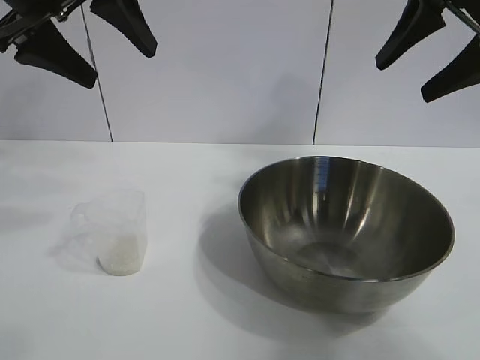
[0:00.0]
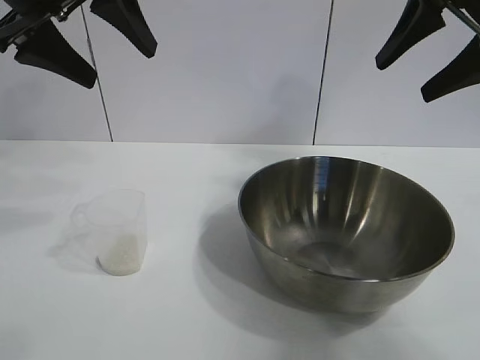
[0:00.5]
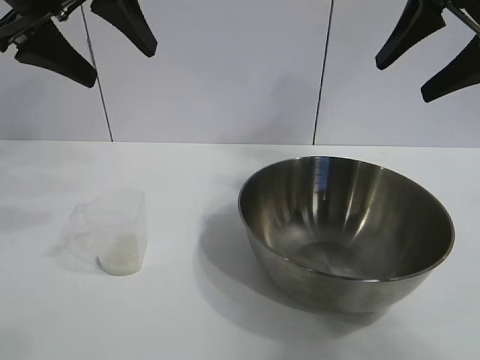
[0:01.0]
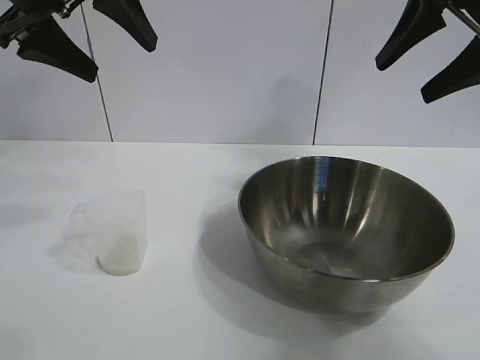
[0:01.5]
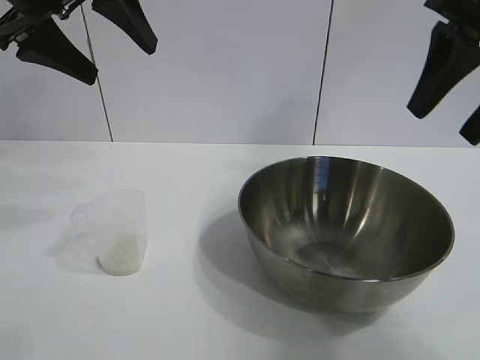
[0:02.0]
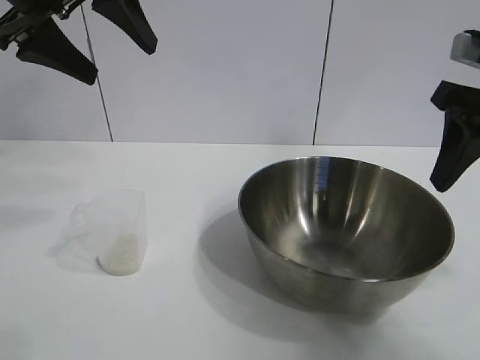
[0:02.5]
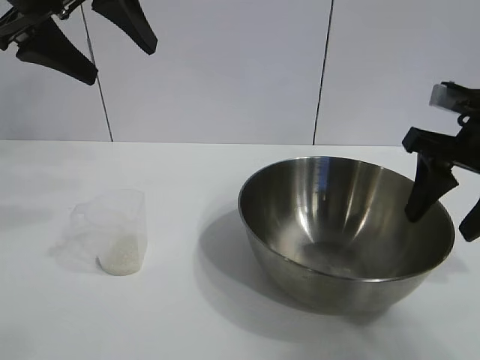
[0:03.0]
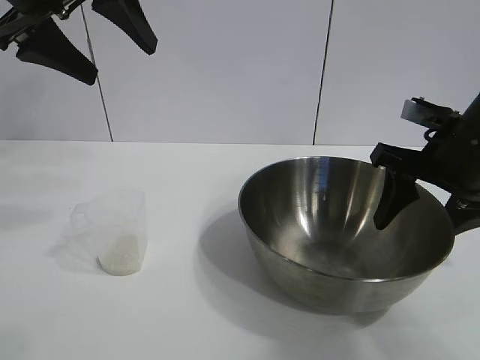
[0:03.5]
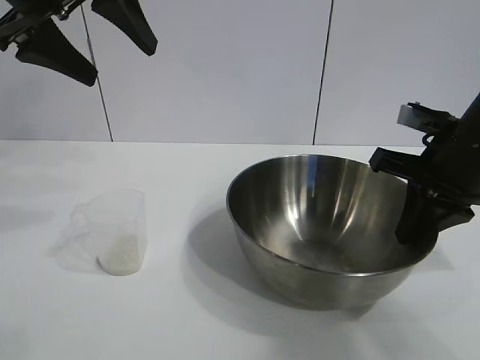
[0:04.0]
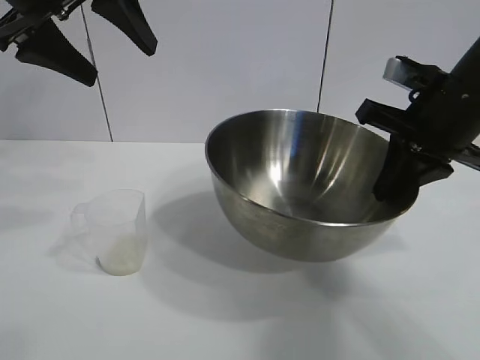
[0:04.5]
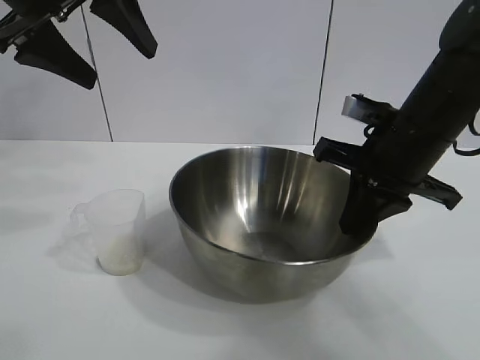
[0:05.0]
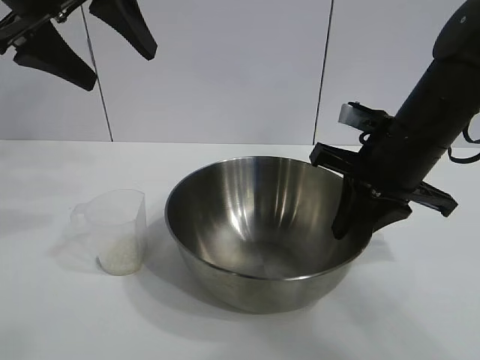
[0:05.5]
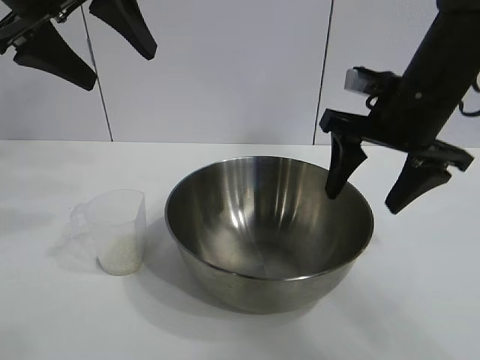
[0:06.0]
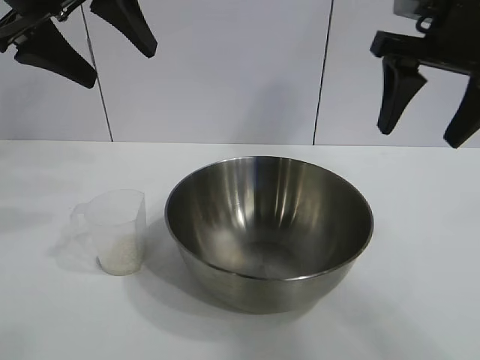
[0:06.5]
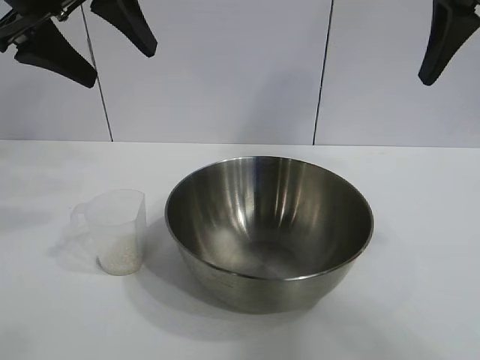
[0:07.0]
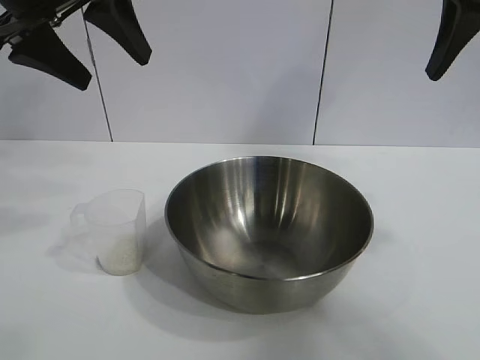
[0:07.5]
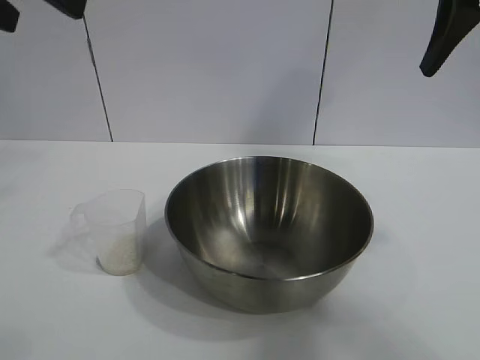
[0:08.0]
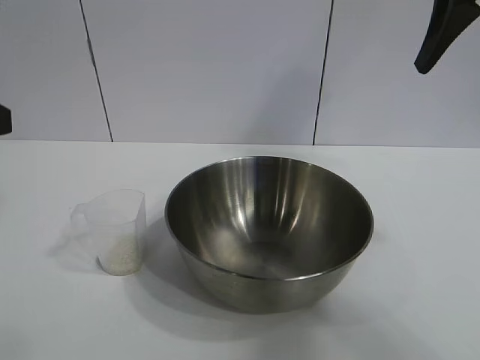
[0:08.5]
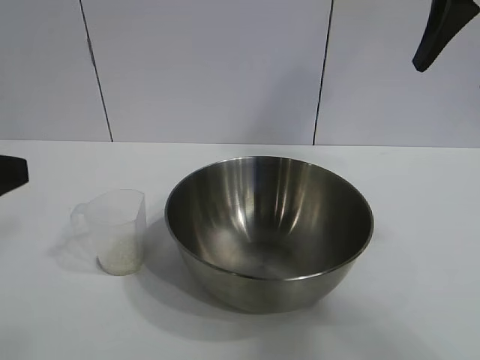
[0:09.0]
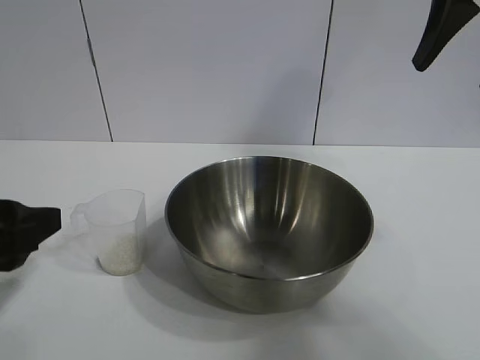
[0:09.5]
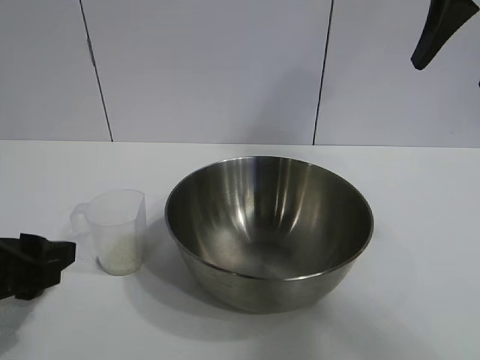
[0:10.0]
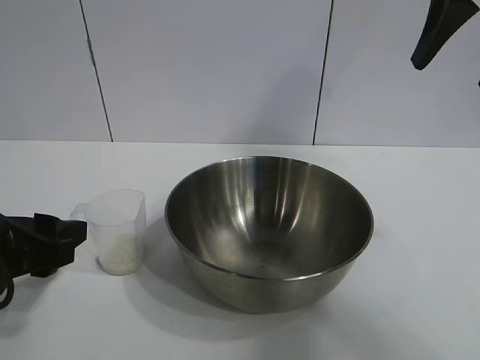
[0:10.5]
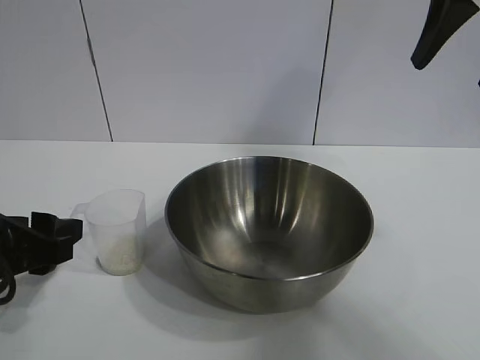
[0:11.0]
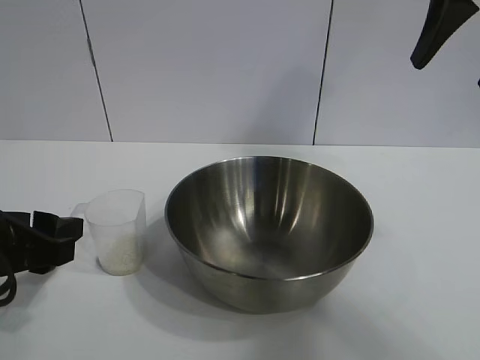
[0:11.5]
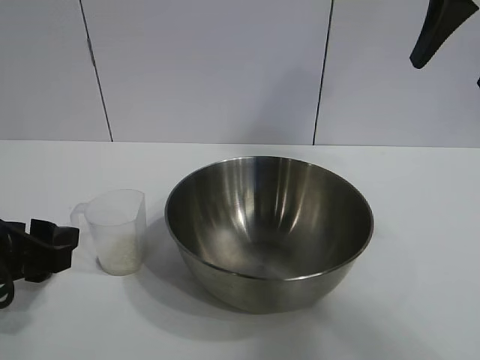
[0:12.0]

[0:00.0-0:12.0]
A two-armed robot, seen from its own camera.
Task of the whole recording: the right gripper grasp the rice container and place it in the center of the table, the left gripper grasp the rice scoop and pour the rice into the rice container.
Step, 0:01.0 to 0:05.5: Move the bowl in the center of view with right gripper.

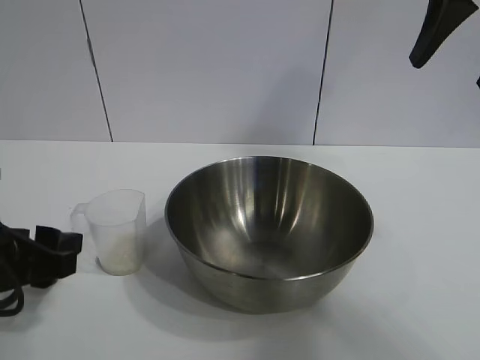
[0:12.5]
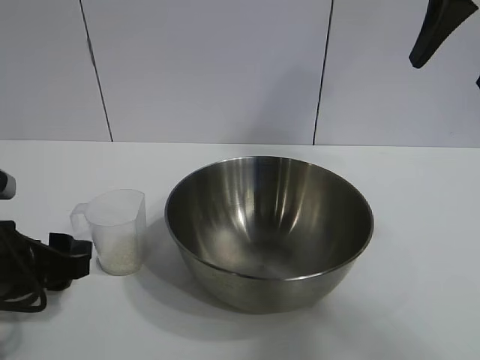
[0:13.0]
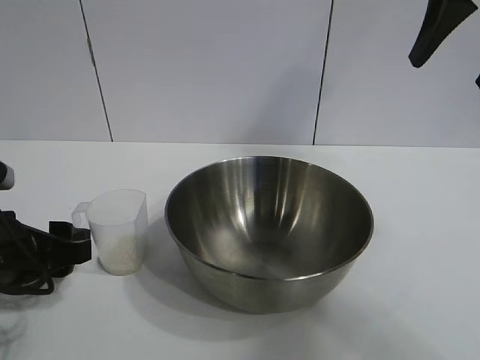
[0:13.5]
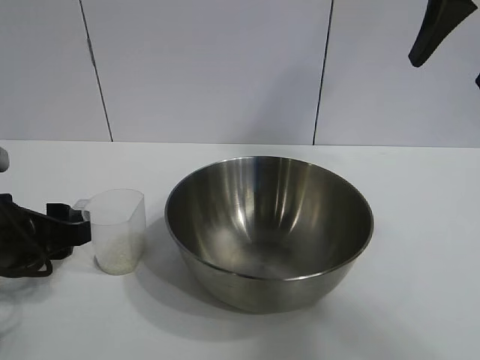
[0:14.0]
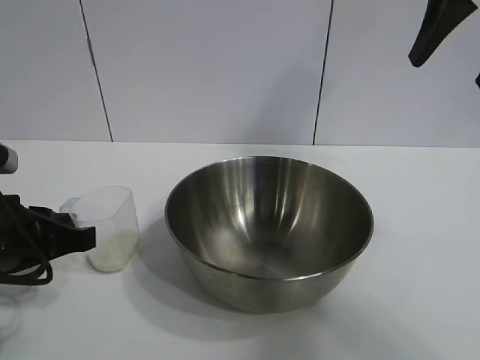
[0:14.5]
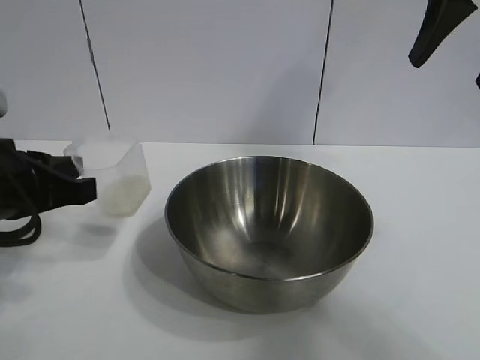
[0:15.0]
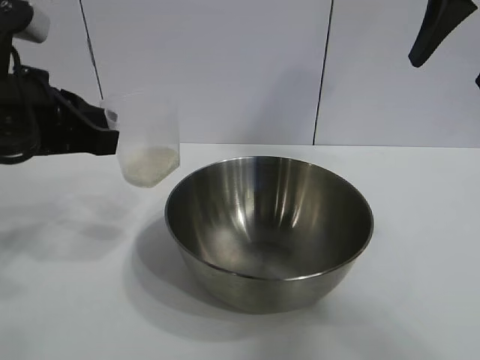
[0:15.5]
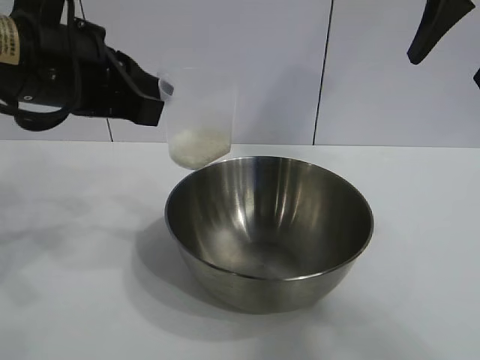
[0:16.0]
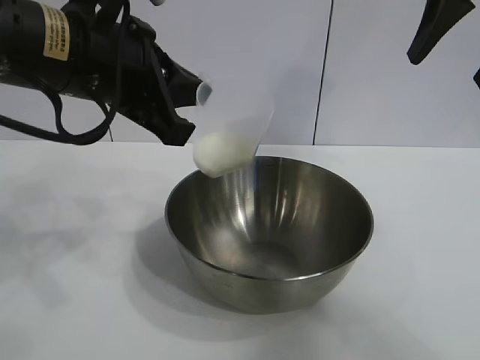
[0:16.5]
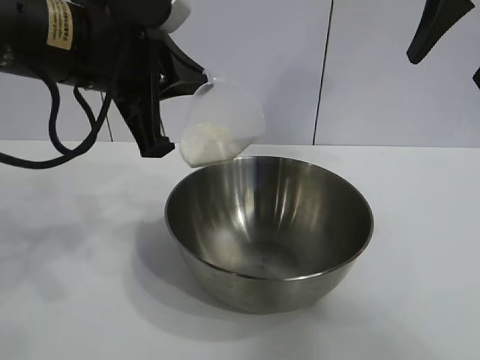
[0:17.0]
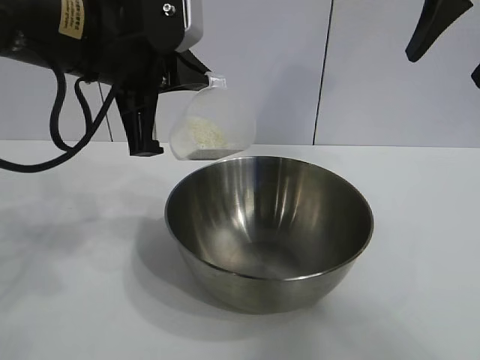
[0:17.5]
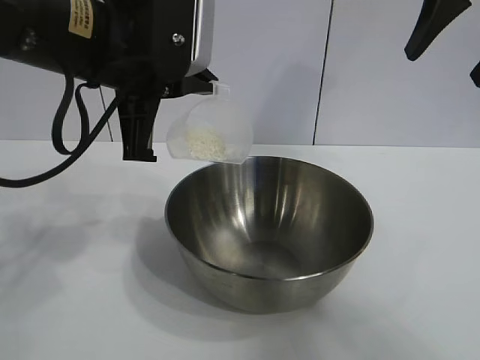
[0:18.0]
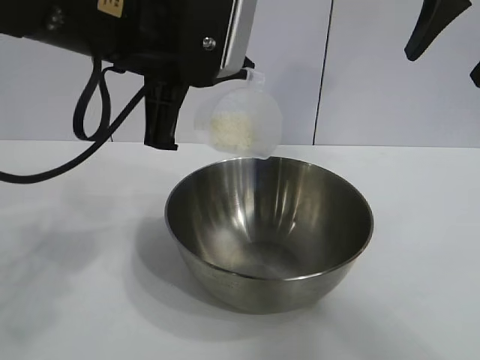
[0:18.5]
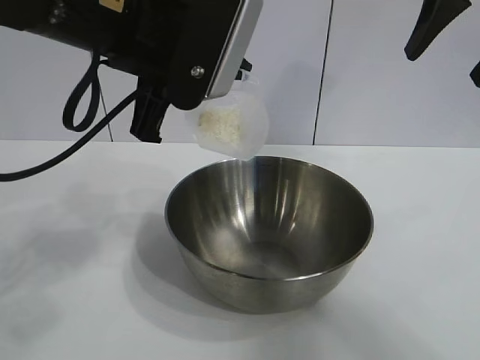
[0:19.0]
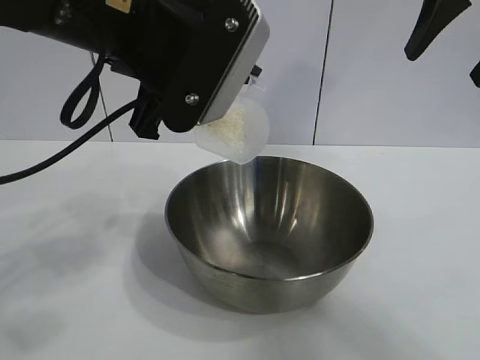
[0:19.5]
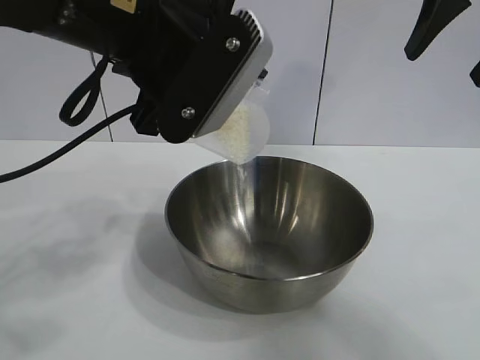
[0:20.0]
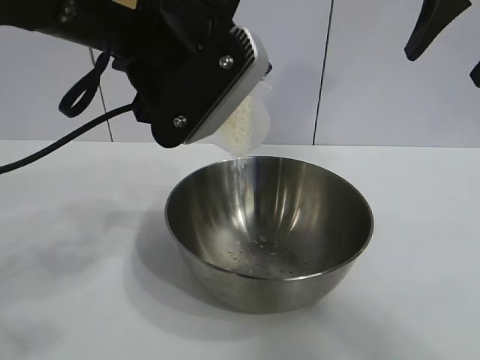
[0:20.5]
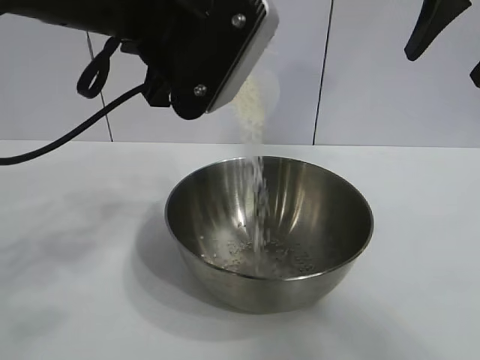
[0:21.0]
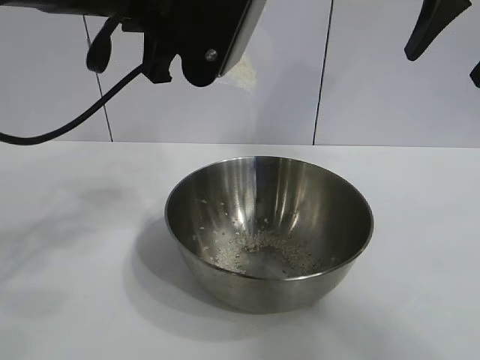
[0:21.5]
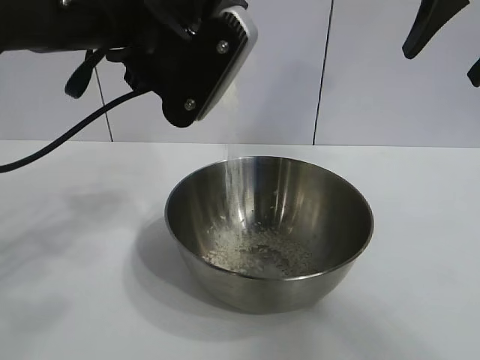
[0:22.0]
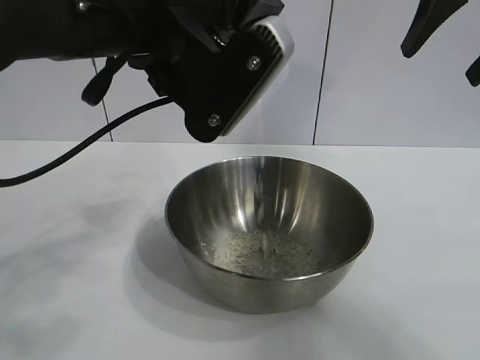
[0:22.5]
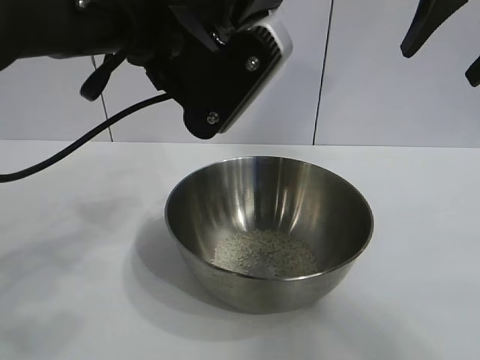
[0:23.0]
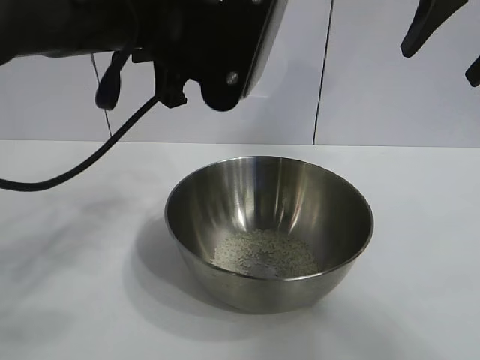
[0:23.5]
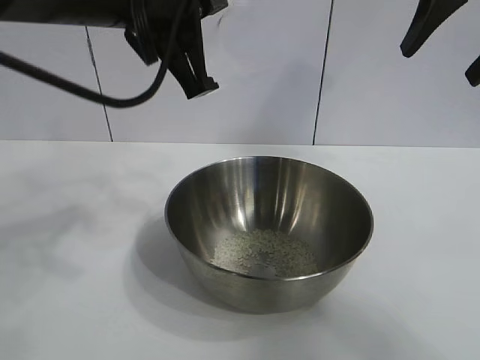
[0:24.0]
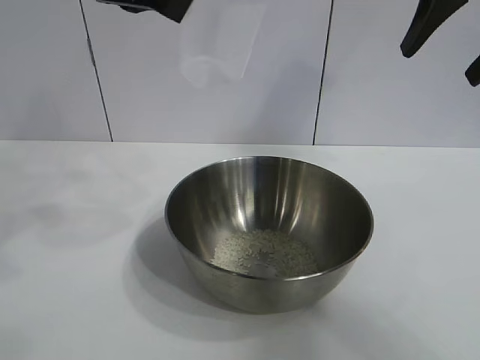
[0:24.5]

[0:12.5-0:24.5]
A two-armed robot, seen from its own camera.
Task of the whole recording: the right gripper grasp the rice container and place it in the center of the table, the left gripper grasp the rice scoop and pour the rice into the rice container.
Step, 0:14.5 to 0:23.0: Pour the rice from the cup into the bowl with the left gripper.

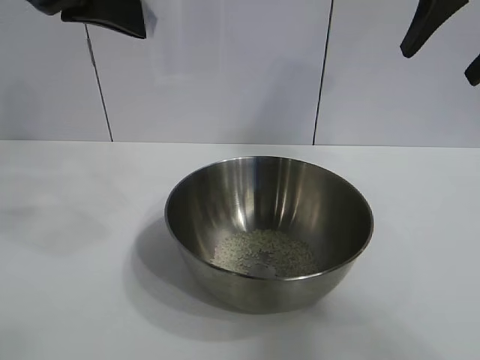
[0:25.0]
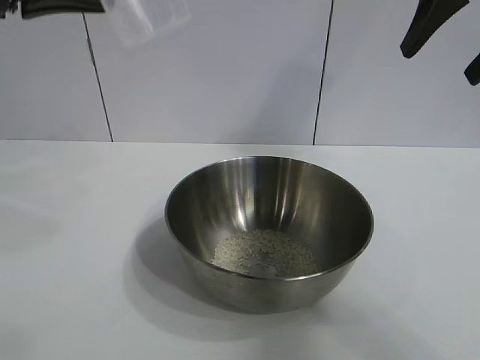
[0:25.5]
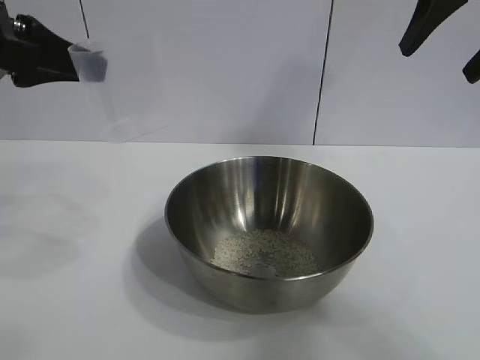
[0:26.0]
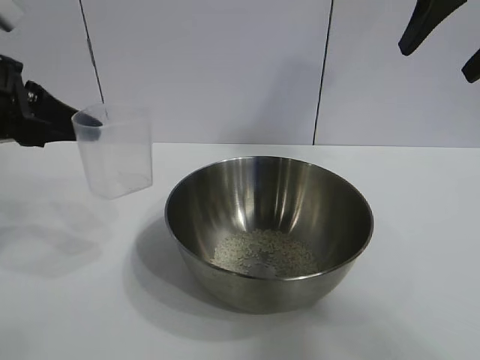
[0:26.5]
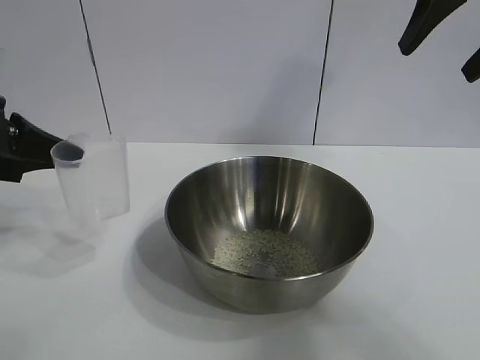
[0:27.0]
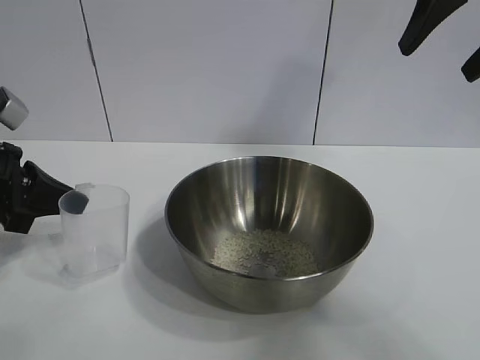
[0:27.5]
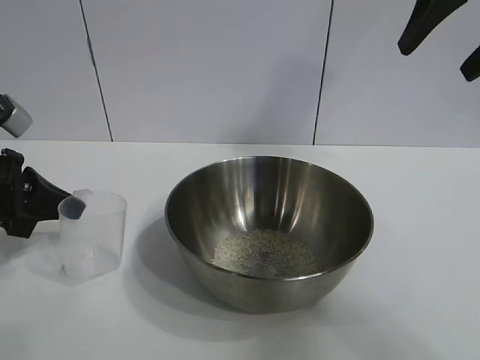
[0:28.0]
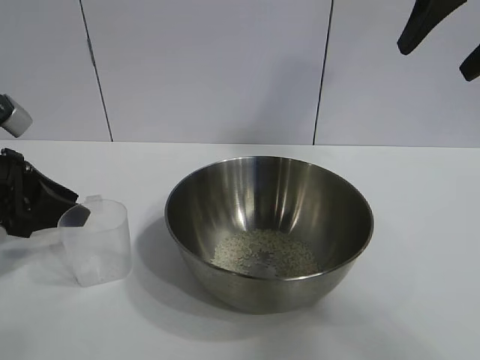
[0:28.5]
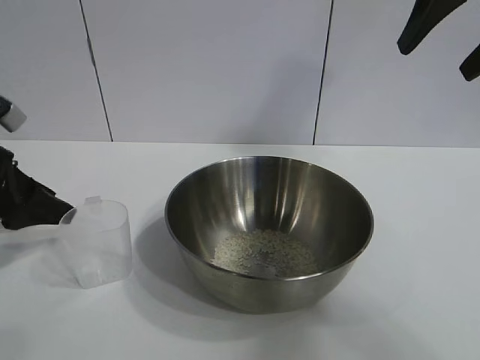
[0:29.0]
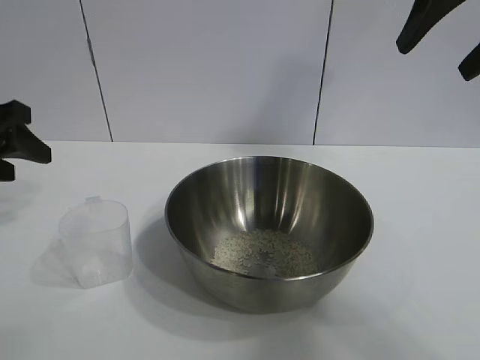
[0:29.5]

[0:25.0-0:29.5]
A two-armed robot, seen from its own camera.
Task of the whole recording: the right gripper grasp the rice container and place it in the center of the table, the left gripper grasp the rice scoop and pour the rice into the rice container.
Step, 0:25.0 to 0:28.5: Place the cup on the table with the left gripper.
